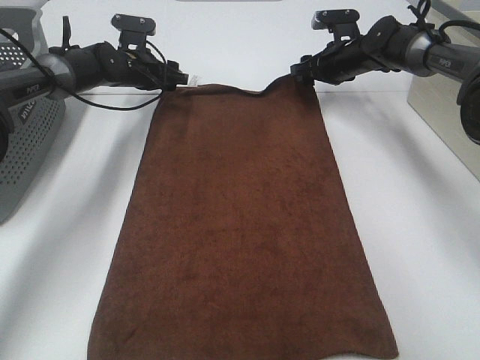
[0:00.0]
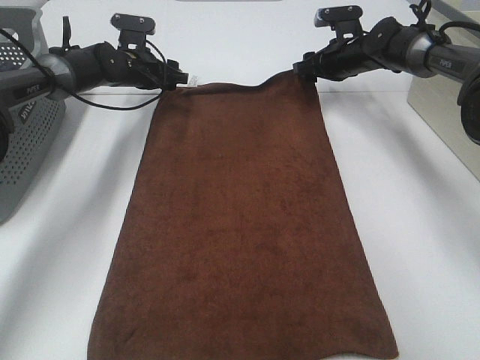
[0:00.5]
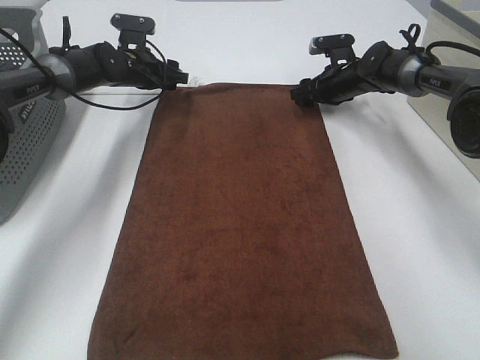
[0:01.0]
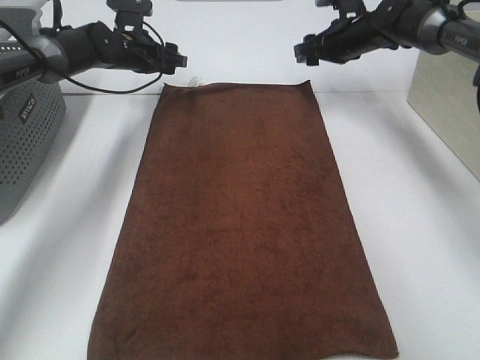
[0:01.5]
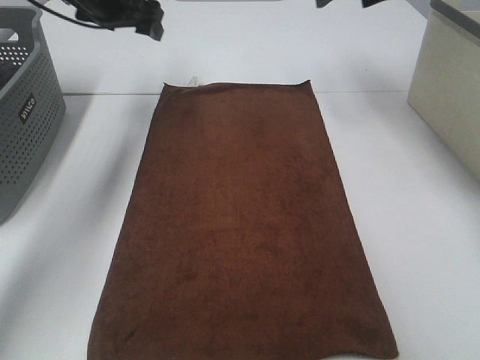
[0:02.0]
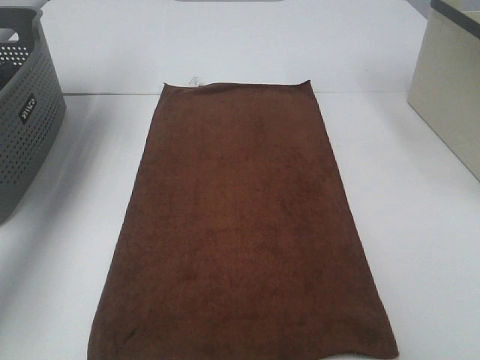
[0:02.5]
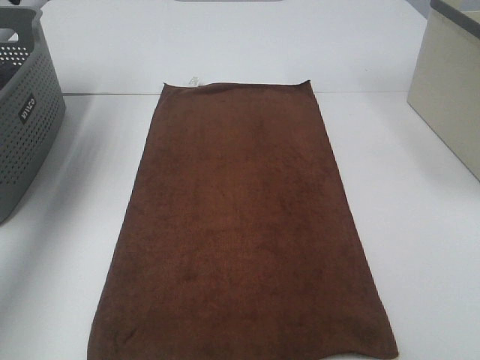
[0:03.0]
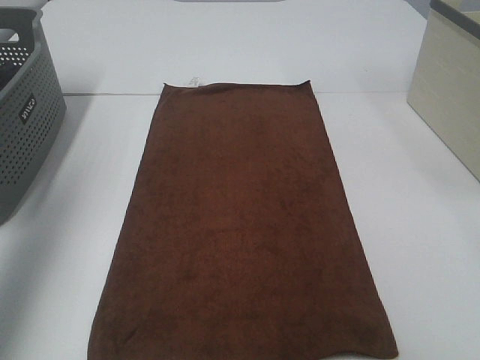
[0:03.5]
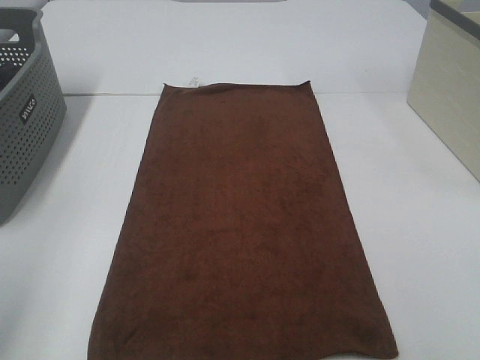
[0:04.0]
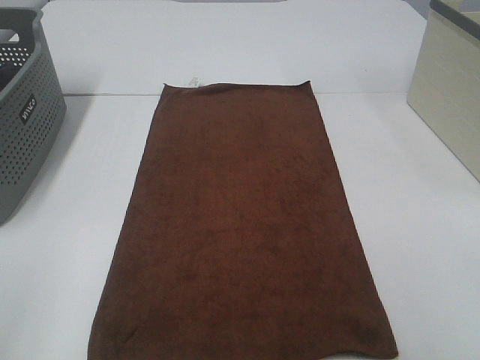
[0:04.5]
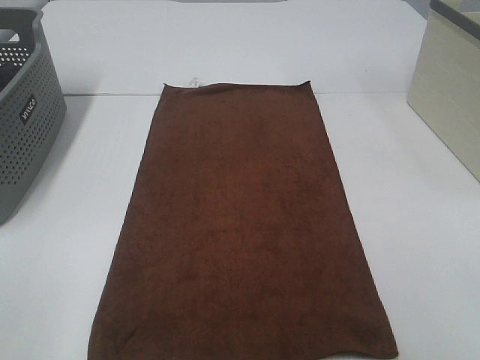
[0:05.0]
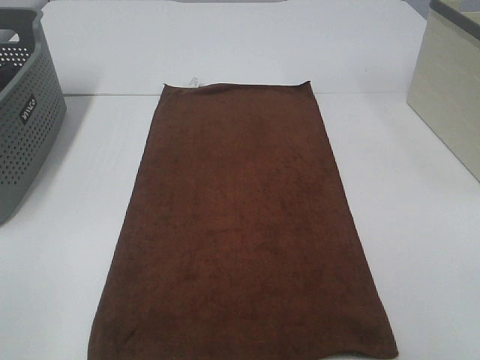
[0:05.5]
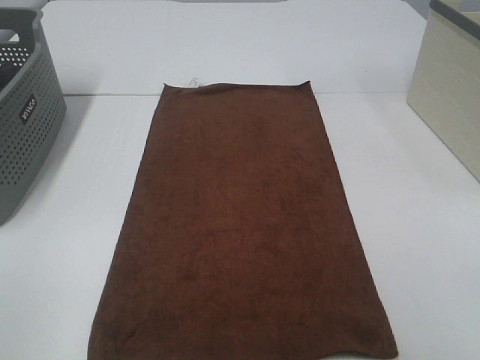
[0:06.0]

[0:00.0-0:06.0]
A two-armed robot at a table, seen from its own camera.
Task of the whole recording: Remove the towel and place it.
0:00.0 to 0:02.0: Both grippers travel together upward, some 20 cm.
0:02.0 to 0:04.0: Both grippers move backward, roughly 50 cm.
0:04.0 to 0:06.0: The left gripper moves backward, roughly 10 cm.

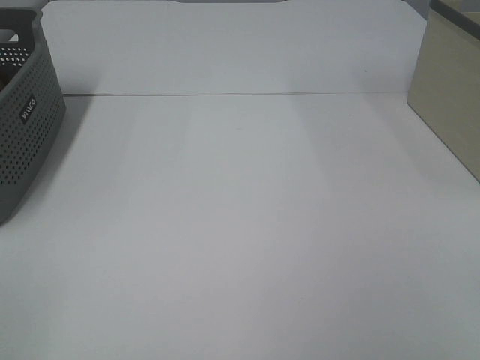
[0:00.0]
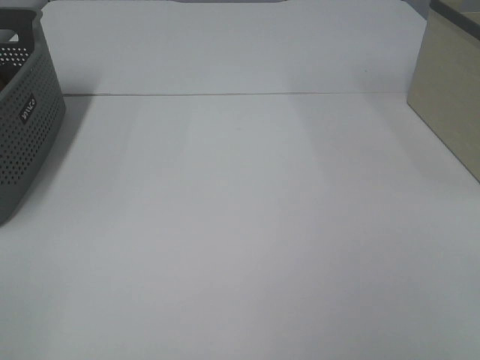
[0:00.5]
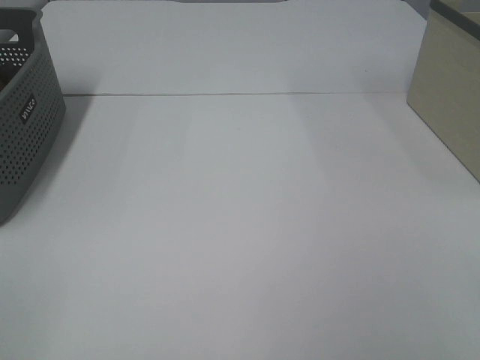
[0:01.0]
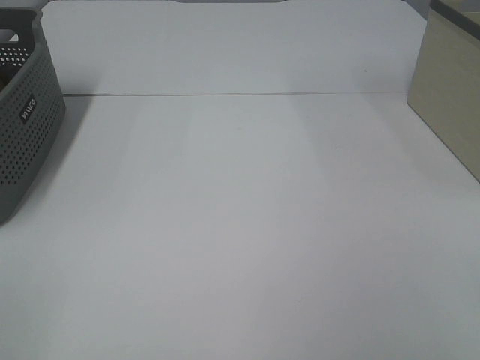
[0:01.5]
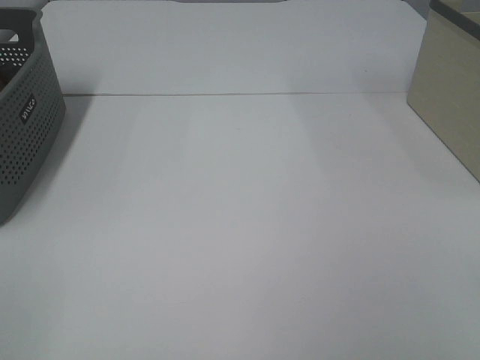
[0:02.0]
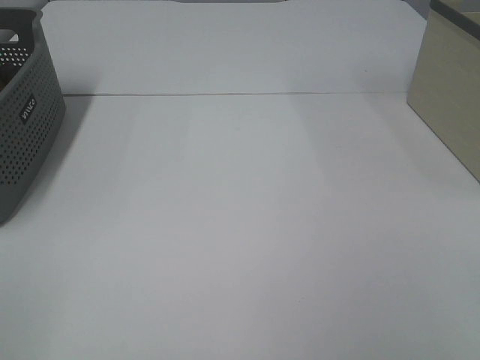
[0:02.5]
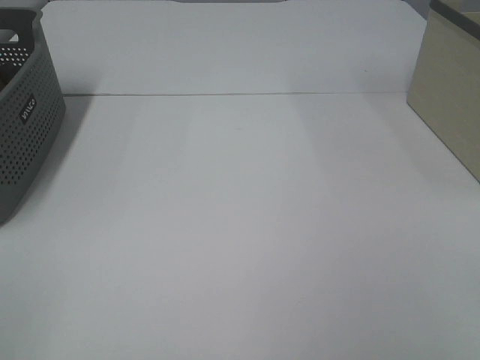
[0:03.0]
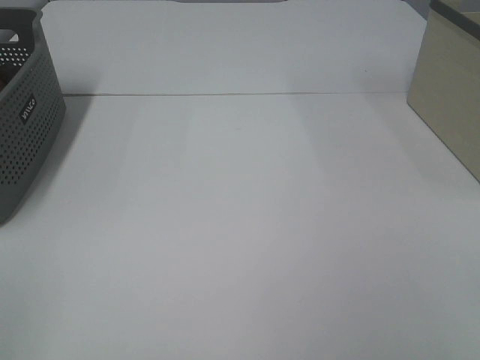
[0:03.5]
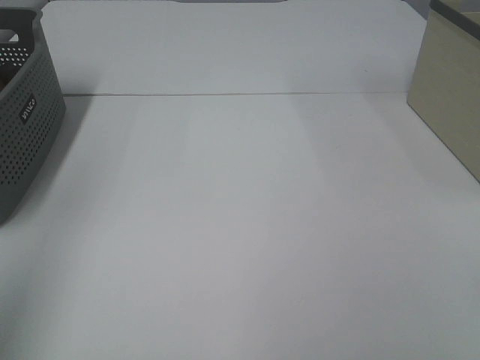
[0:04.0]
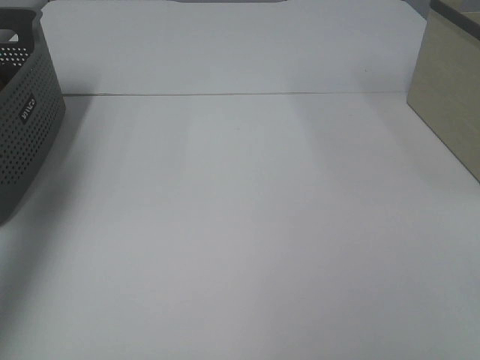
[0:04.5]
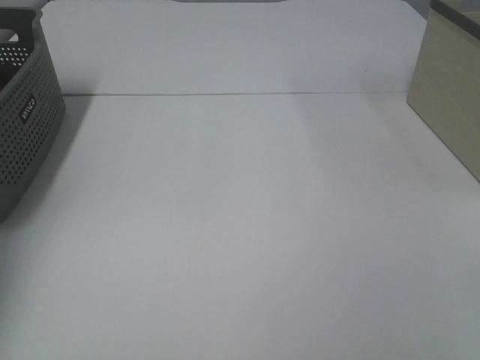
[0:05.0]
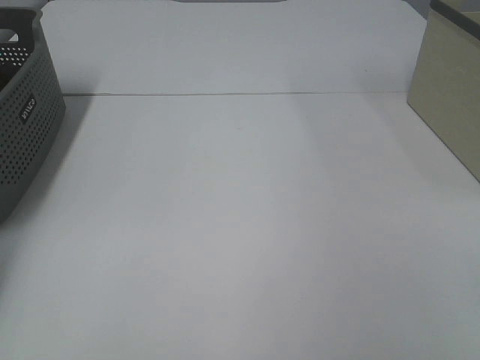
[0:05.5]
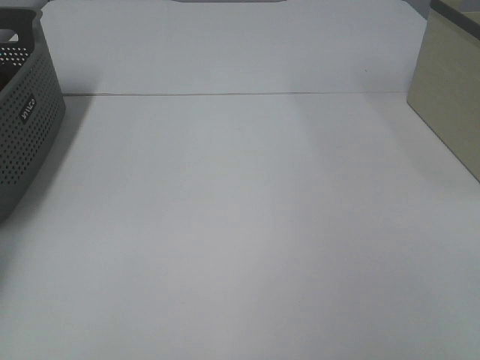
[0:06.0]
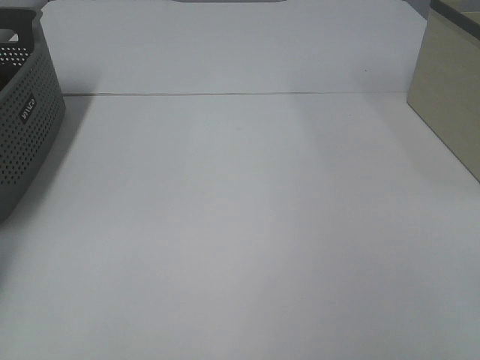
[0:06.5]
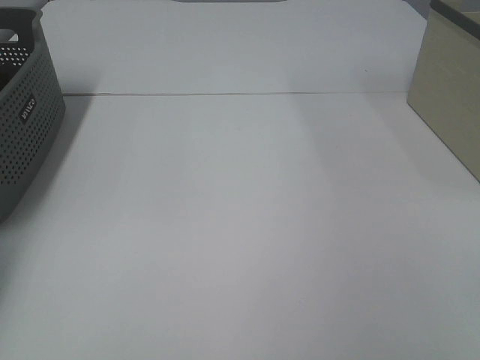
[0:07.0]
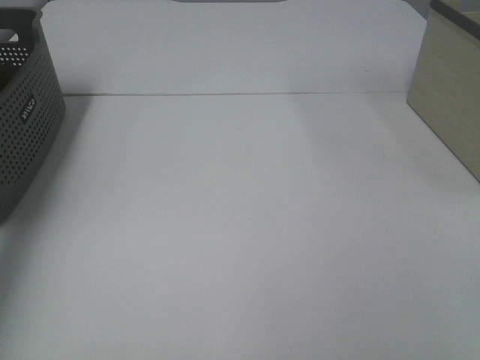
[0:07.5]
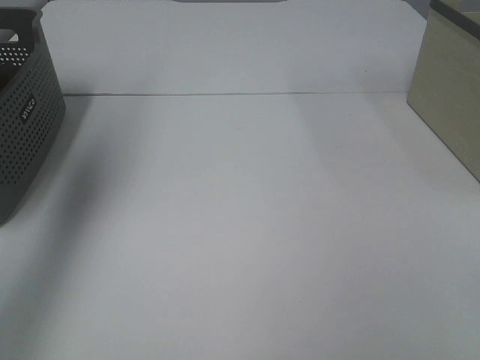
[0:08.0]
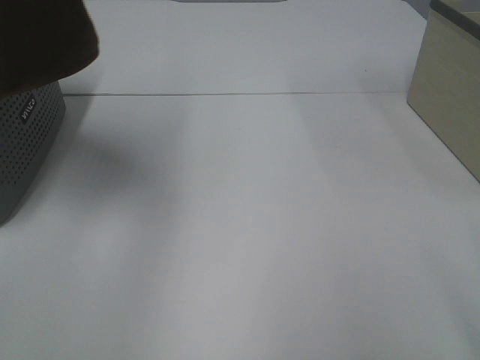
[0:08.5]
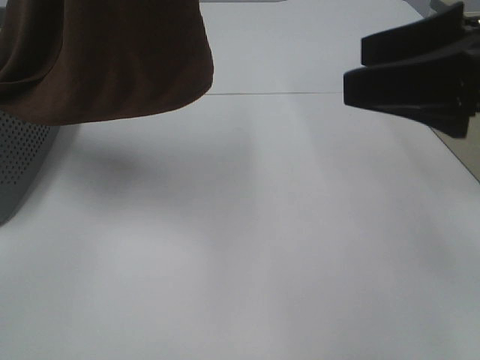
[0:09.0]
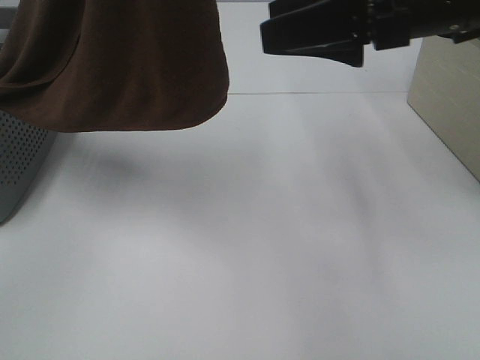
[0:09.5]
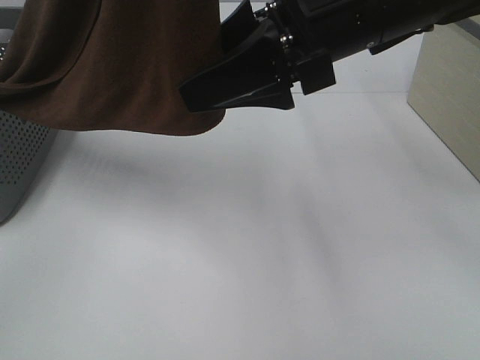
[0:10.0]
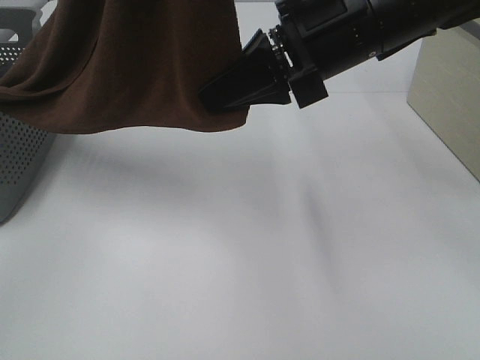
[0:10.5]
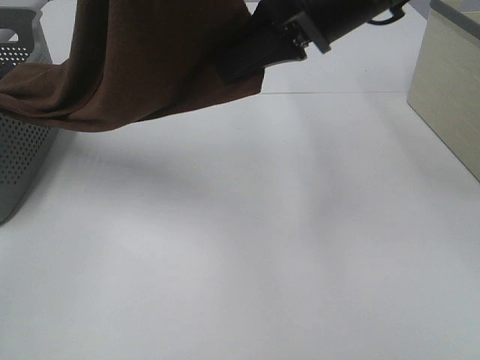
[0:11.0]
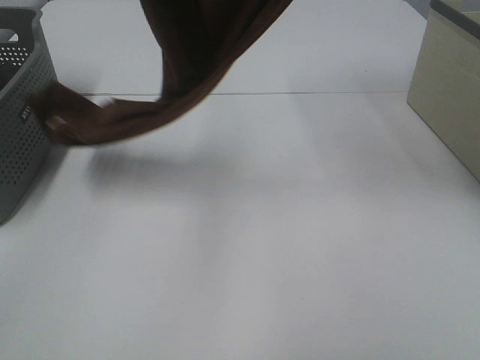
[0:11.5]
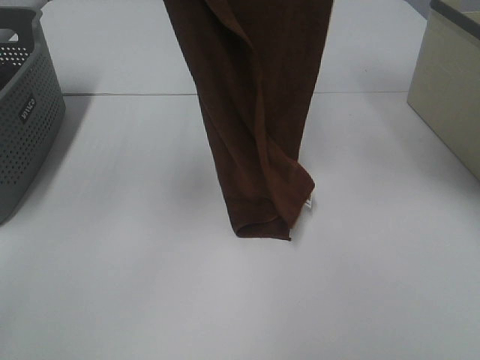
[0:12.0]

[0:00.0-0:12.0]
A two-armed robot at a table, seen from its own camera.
Task of the whole recording: Remove the towel and place it.
Step, 0:08.0 to 0:10.0: Right hand: grab a corner of the brown towel and straighten it.
0:00.0 to 0:02.0: The two grippers keep their place.
0:02.0 to 0:04.0: The left gripper travels upward and forward by roughly 15 cm.
0:04.0 to 0:06.0: The left gripper heads forward and downward, covering some 40 cm.
0:06.0 to 0:08.0: The left gripper travels upward, to the right and backward by some 35 cm, and closes up.
0:08.0 to 0:10.0: The right gripper shifts approximately 35 cm forward and to the left. Meanwhile the left gripper shifts about 25 cm to the right and backward.
0:10.0 to 0:12.0: The right gripper is displaced upward by roughly 20 cm, and closes. Meanwhile the left gripper heads forward and to the left, covering some 10 cm.

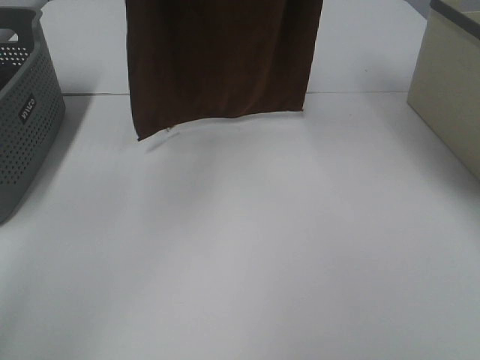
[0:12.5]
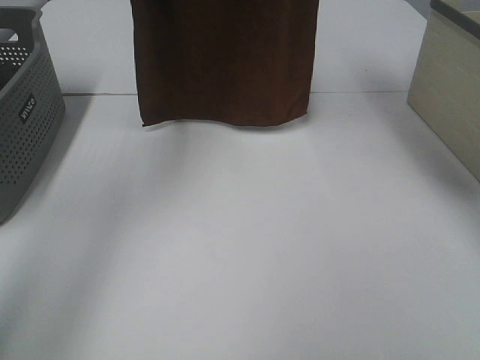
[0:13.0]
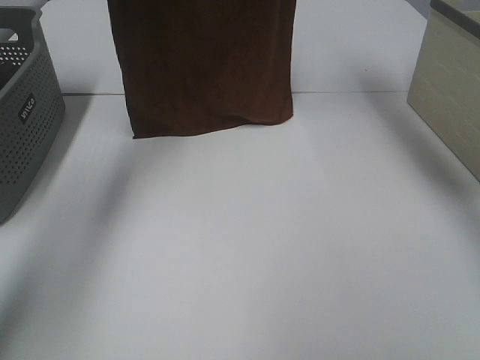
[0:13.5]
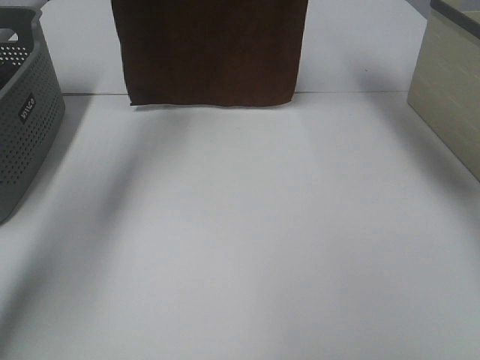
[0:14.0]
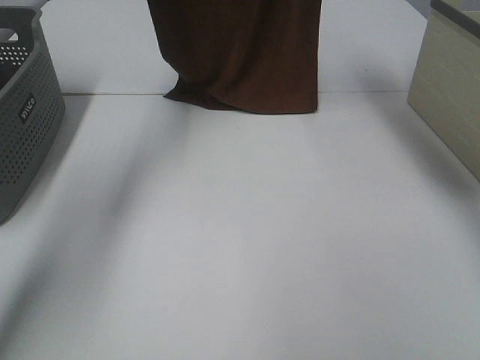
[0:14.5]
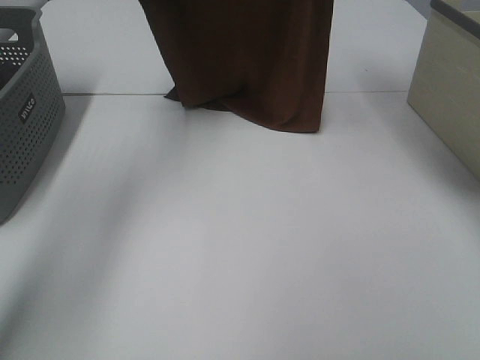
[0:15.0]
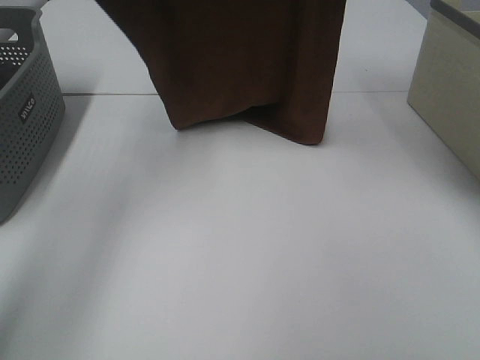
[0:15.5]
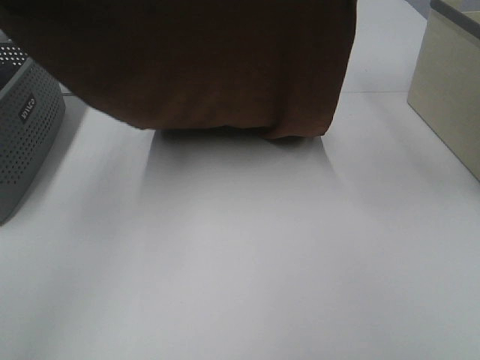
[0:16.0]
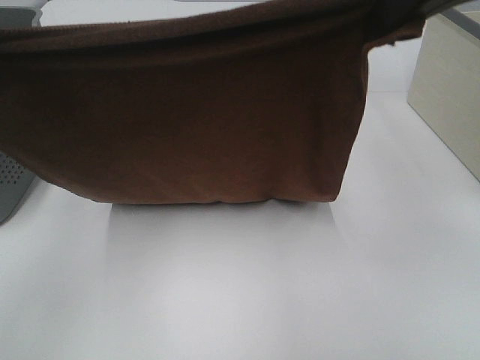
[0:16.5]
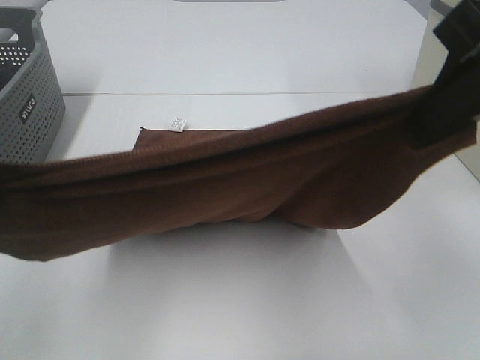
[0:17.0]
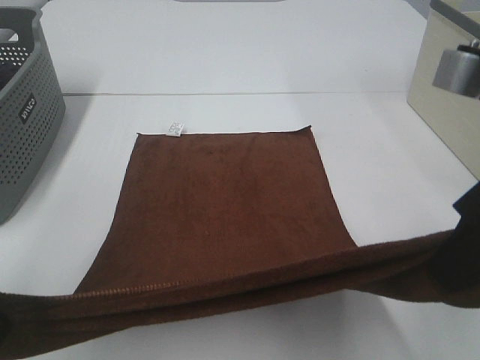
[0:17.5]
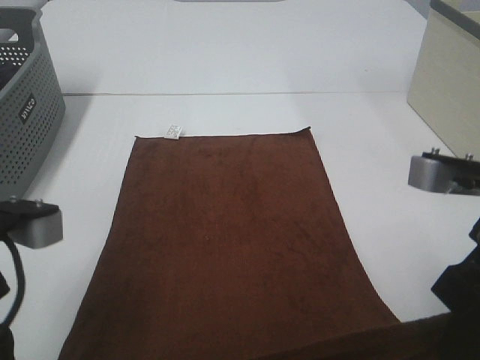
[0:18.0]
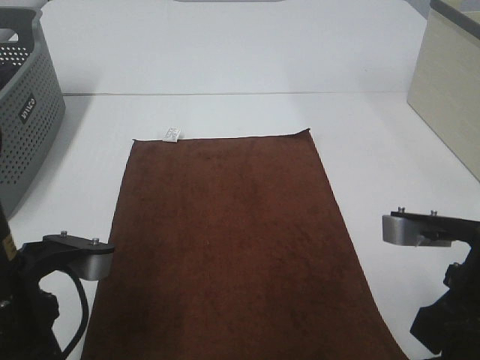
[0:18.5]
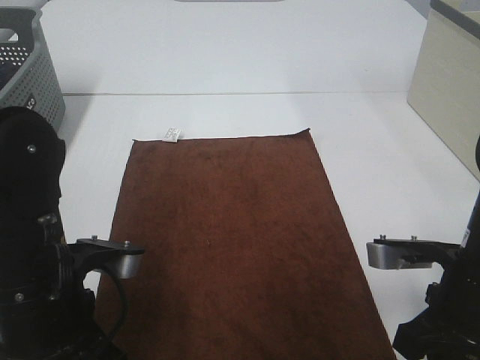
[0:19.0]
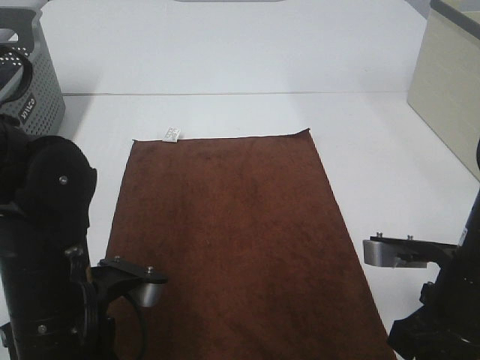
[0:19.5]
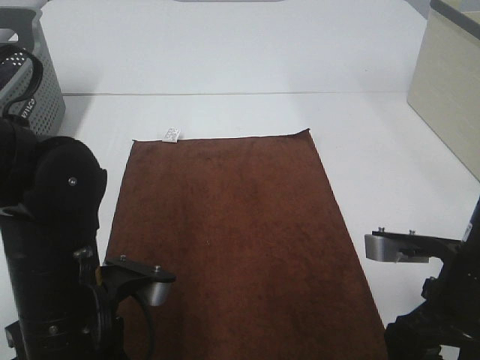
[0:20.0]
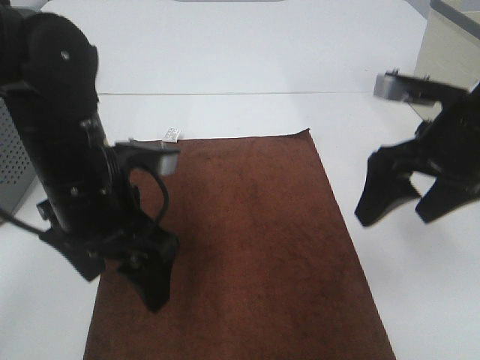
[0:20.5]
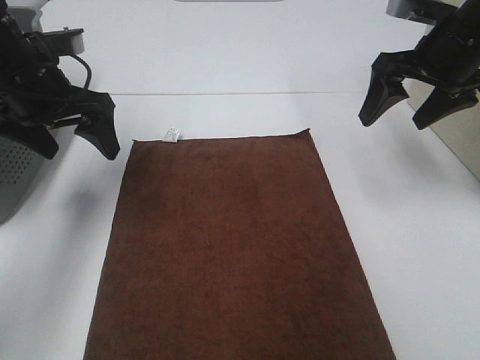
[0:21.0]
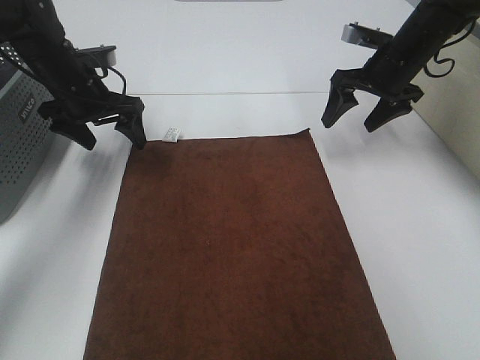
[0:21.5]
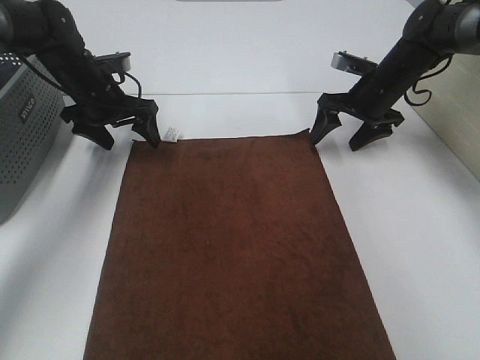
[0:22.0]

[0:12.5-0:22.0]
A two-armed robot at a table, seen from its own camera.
Task of the whole recording: Remove the towel and place it.
Step, 0:12.5 to 0:15.5: Left hand: spread the brown towel flat on the table.
Step, 0:12.5 to 0:15.5: Right hand: spread the brown towel flat on the table.
Step, 0:16.0 to 0:22.0: Right hand:adjust the brown towel.
0:12.5 to 0:14.5: The right gripper moves forward and downward, roughly 10 cm. The left gripper is displaced forward and downward by about 15 cm.
0:14.5 to 0:16.5: Both grippers travel together backward, roughly 30 cm.
0:16.5 to 0:18.0: The left gripper goes some 15 cm downward; the right gripper moves downward and backward, roughly 20 cm.
0:18.0 to 0:20.0: The right gripper is displaced downward by about 10 cm, and opens up. Meanwhile the left gripper is displaced downward and to the right by about 10 cm, and opens.
0:20.0 to 0:22.0: Both grippers move forward, approximately 35 cm.
